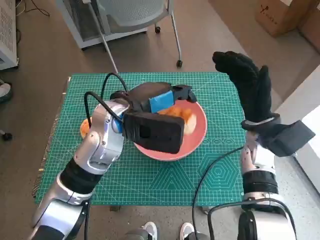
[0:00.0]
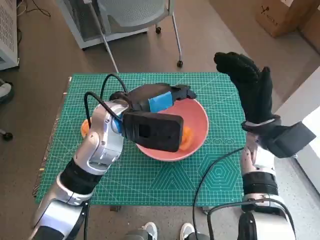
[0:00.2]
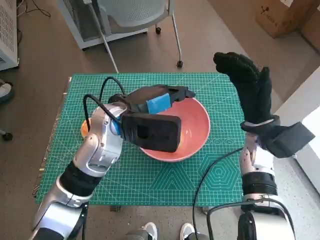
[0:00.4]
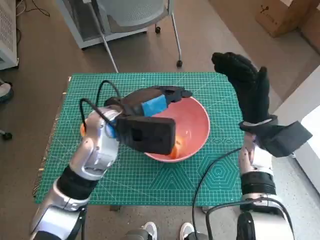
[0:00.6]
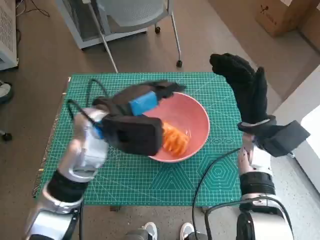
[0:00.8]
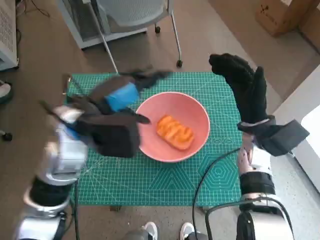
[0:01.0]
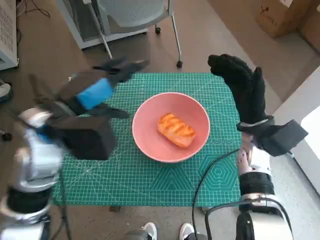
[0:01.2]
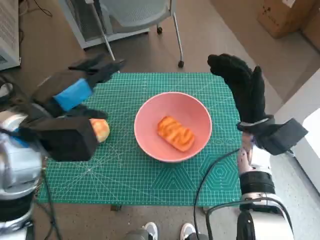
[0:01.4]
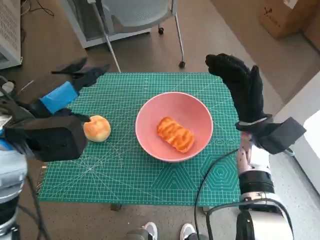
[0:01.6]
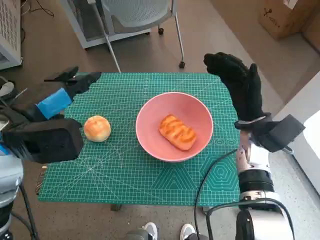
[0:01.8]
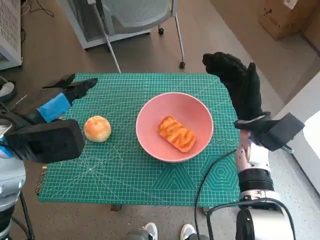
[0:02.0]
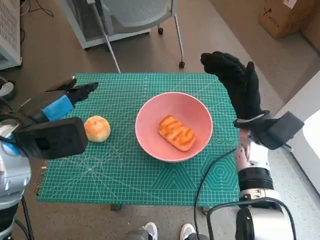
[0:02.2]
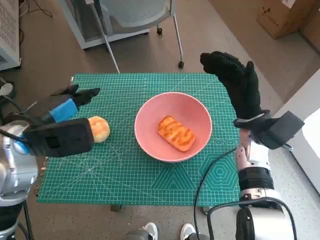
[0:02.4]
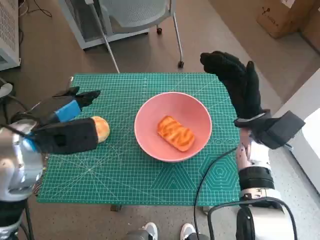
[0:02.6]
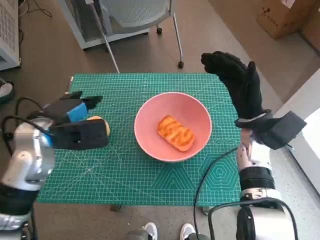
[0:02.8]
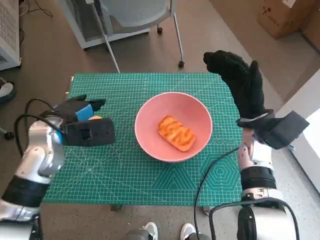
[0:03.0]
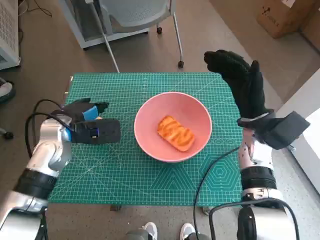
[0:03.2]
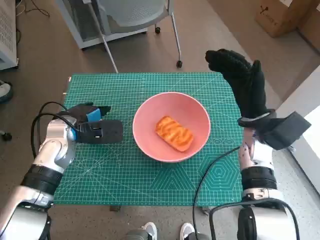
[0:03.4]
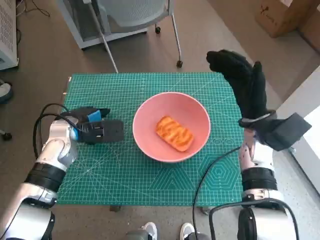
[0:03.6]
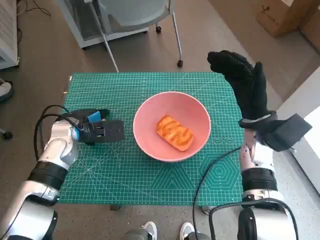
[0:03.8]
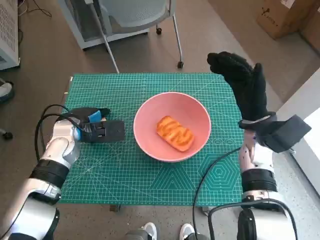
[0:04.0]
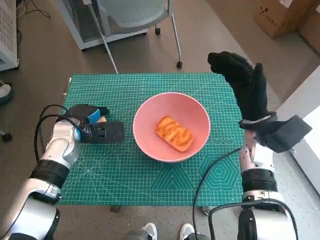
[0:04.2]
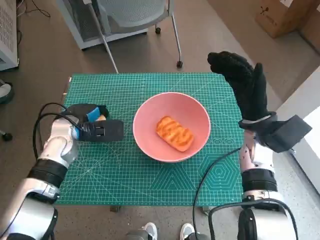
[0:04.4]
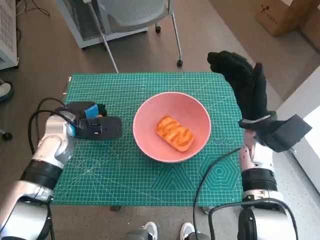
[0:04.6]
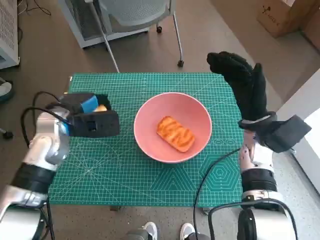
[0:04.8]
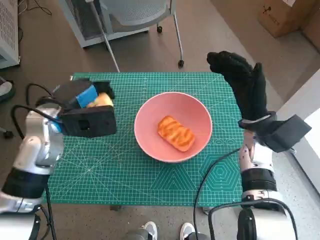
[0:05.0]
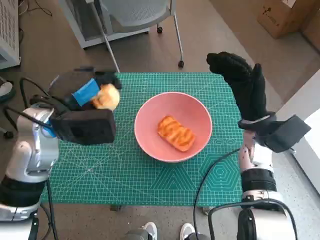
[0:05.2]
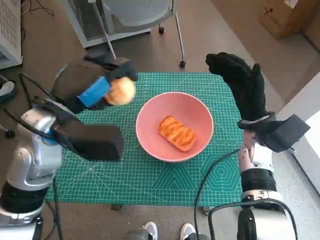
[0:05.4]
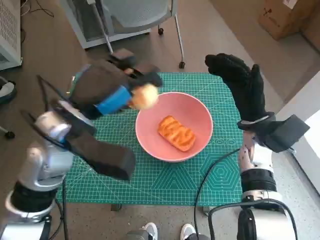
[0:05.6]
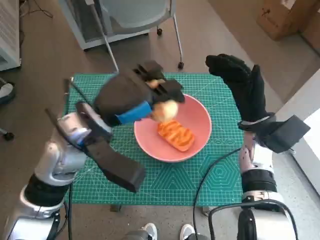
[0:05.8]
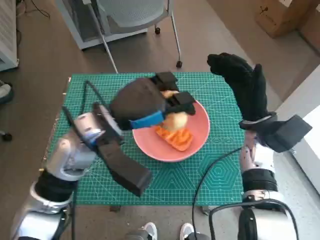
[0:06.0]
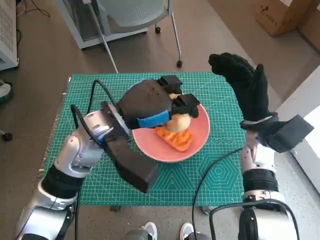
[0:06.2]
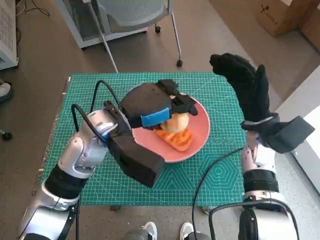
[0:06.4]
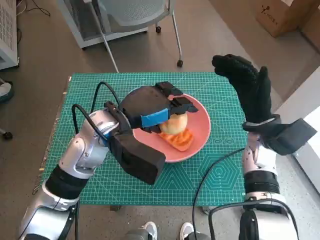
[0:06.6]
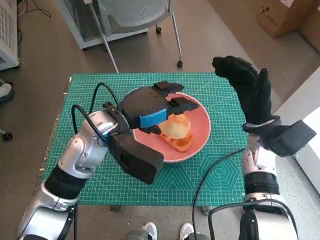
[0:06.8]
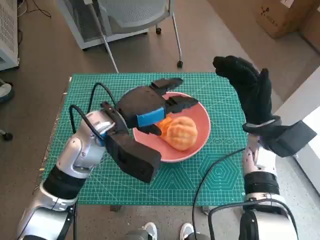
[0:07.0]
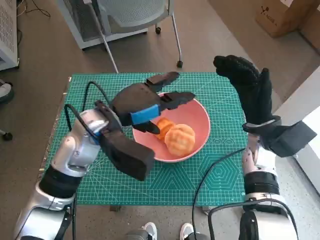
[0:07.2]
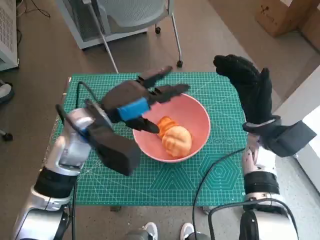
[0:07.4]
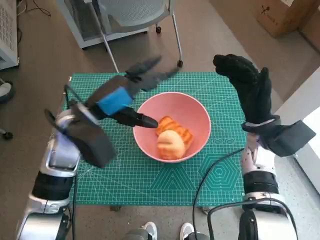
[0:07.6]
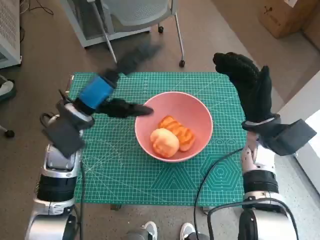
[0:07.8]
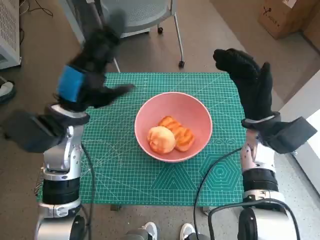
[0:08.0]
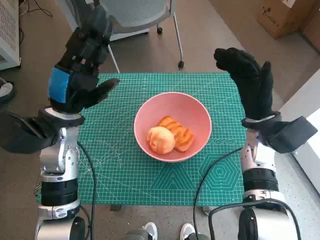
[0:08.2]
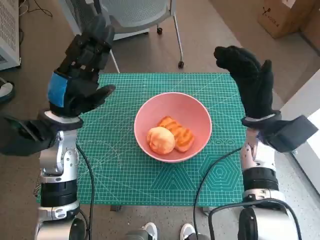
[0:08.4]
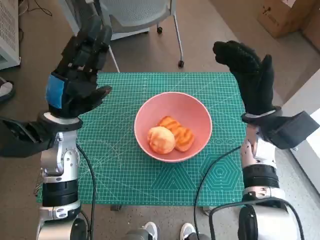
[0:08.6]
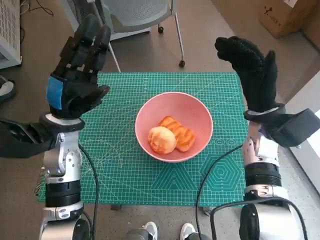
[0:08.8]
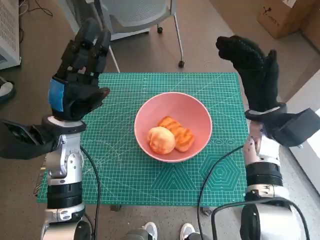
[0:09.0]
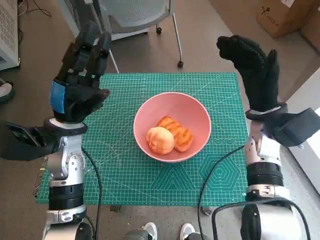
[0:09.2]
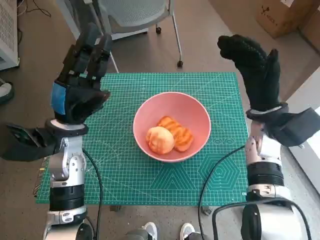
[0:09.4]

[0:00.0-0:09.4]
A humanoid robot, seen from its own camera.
Step, 0.6 to 4.0 s: Grasp the round bread with left hand.
Step, 4.2 to 7.0 s: Place the round bread in pink bowl with left hand.
0.0 to 1.6 s: The left hand moves to the left and backward, roughly 15 cm.
1.6 to 3.2 s: The left hand goes approximately 10 cm downward and forward.
3.2 to 4.8 s: The hands move only a little.
4.8 to 6.2 s: The left hand heads to the right and upward, covering roughly 10 cm.
6.2 to 7.8 s: The left hand shifts some 5 cm to the left.

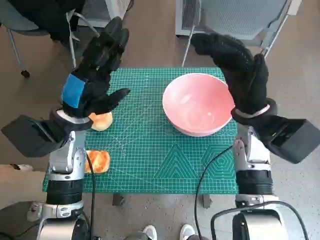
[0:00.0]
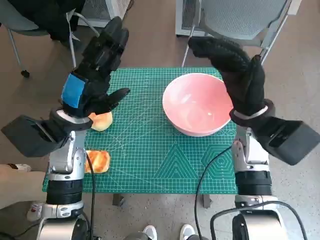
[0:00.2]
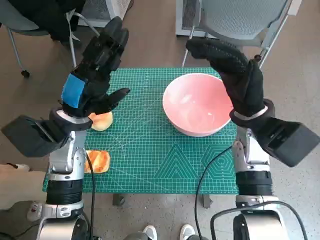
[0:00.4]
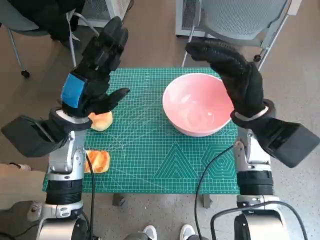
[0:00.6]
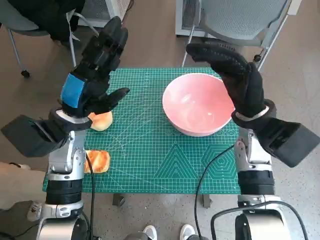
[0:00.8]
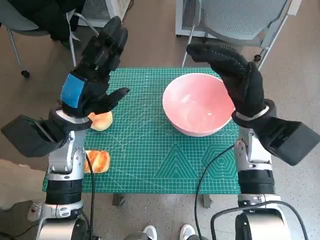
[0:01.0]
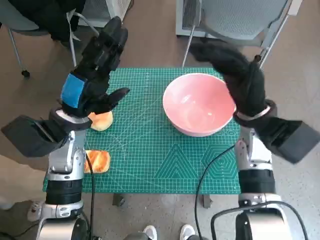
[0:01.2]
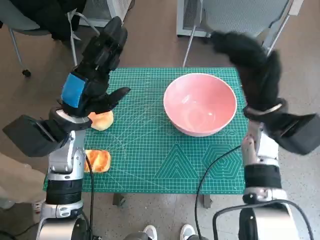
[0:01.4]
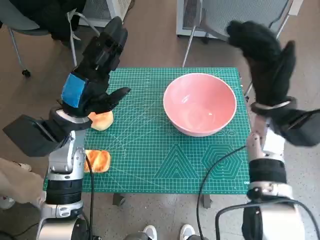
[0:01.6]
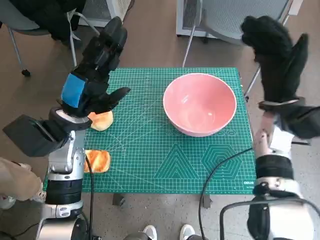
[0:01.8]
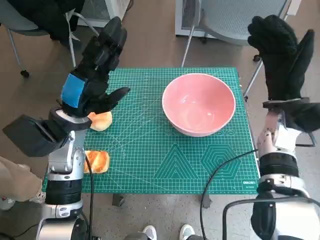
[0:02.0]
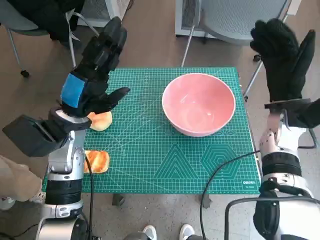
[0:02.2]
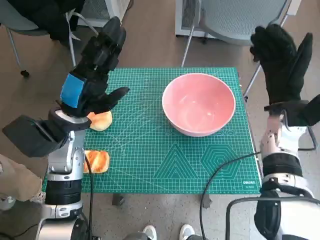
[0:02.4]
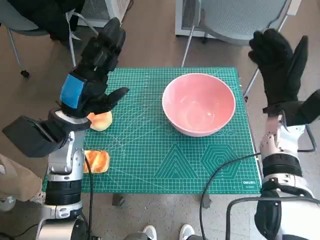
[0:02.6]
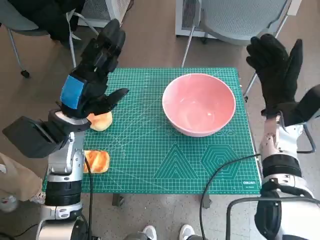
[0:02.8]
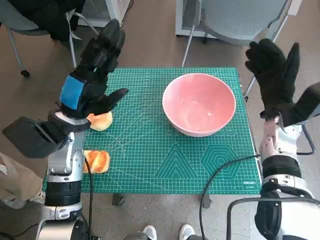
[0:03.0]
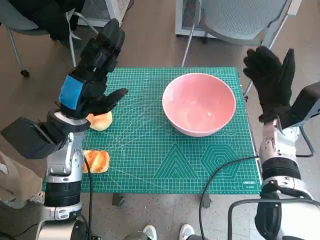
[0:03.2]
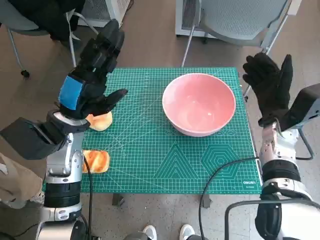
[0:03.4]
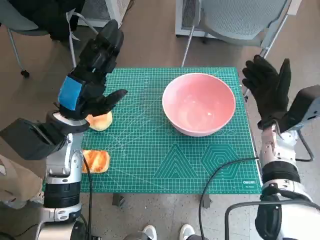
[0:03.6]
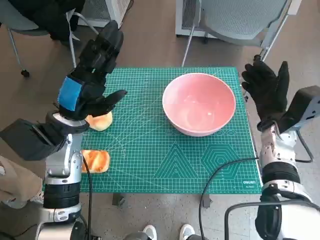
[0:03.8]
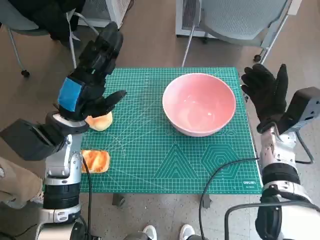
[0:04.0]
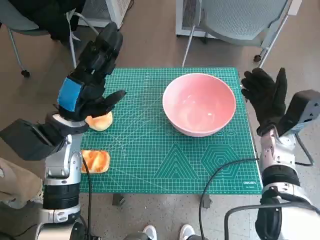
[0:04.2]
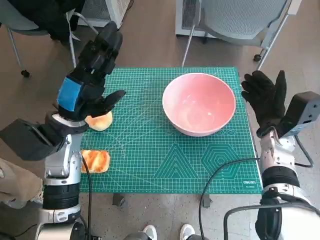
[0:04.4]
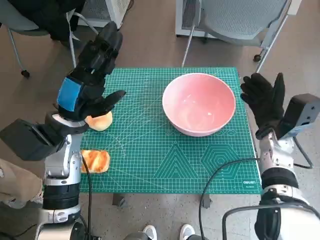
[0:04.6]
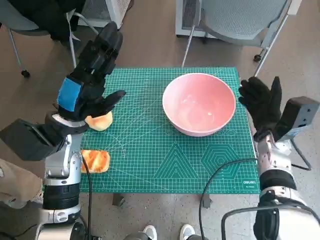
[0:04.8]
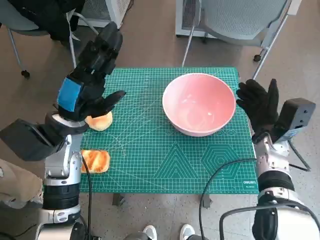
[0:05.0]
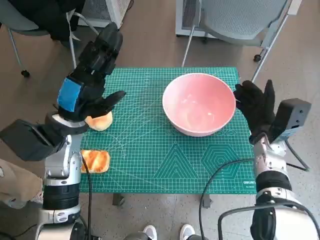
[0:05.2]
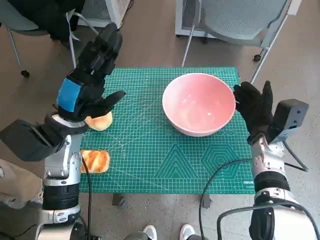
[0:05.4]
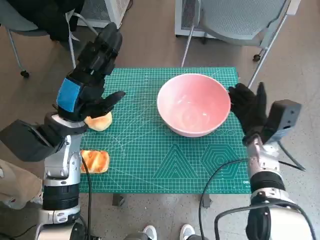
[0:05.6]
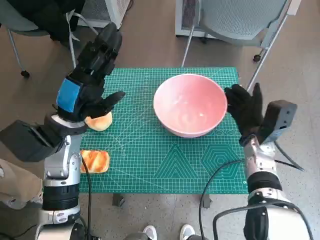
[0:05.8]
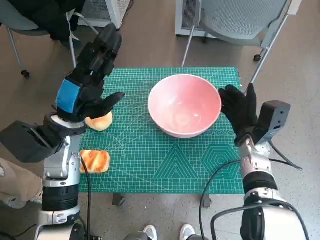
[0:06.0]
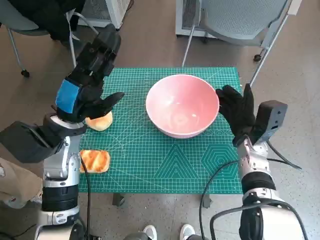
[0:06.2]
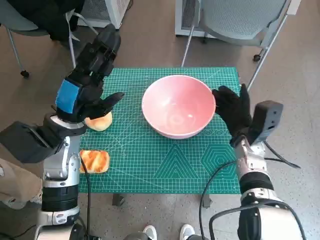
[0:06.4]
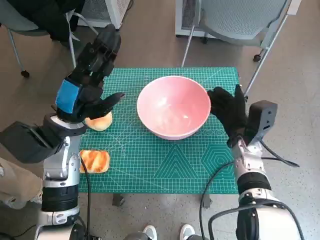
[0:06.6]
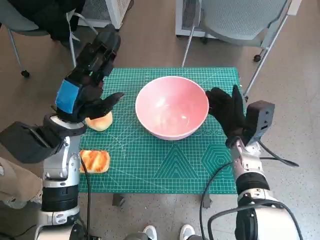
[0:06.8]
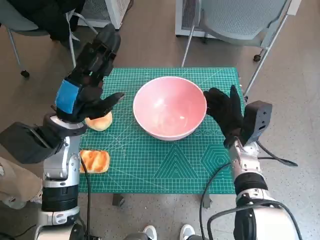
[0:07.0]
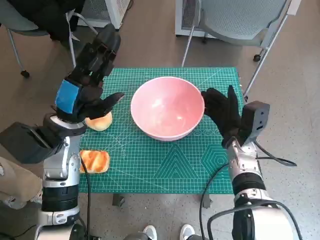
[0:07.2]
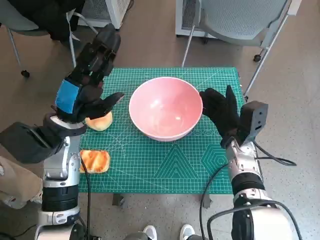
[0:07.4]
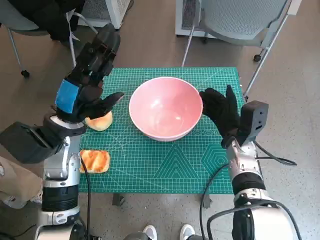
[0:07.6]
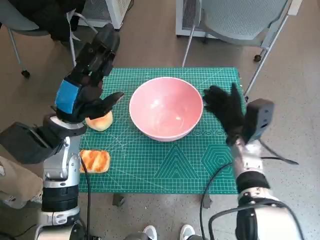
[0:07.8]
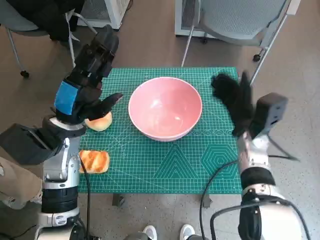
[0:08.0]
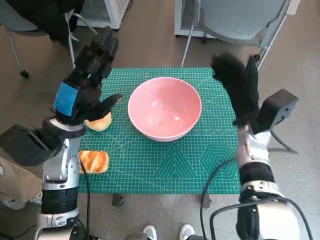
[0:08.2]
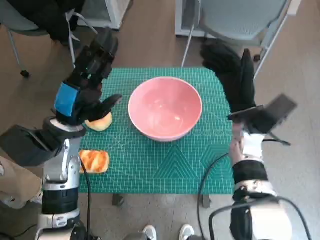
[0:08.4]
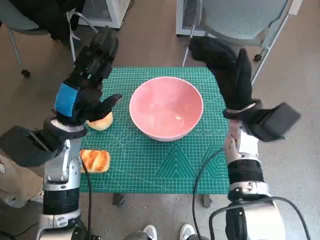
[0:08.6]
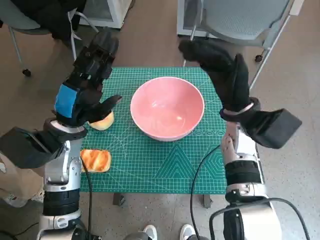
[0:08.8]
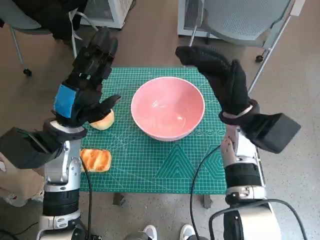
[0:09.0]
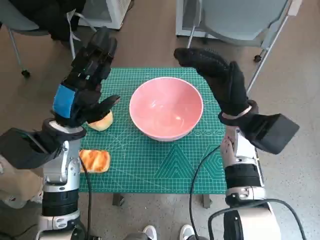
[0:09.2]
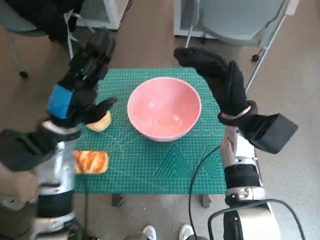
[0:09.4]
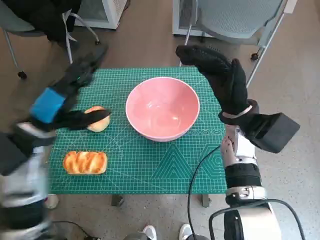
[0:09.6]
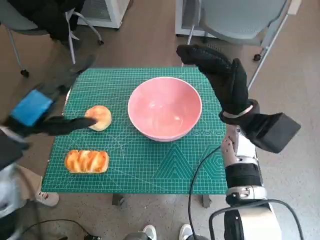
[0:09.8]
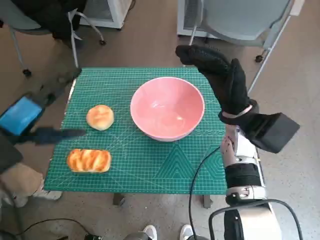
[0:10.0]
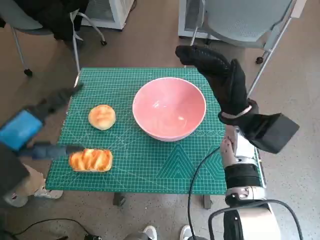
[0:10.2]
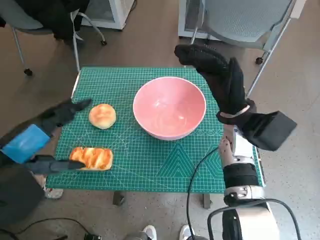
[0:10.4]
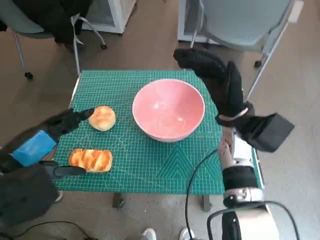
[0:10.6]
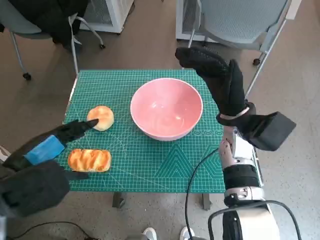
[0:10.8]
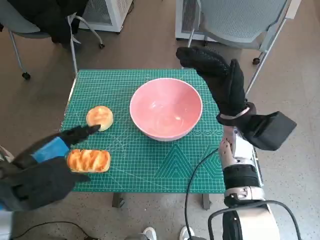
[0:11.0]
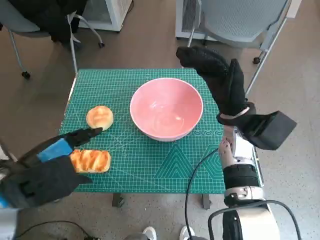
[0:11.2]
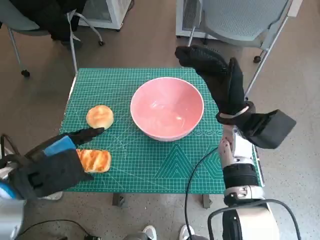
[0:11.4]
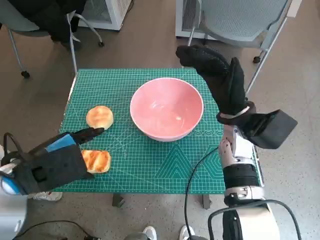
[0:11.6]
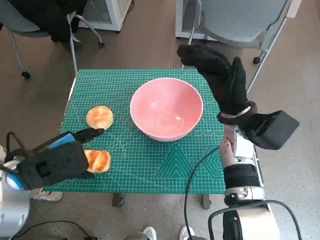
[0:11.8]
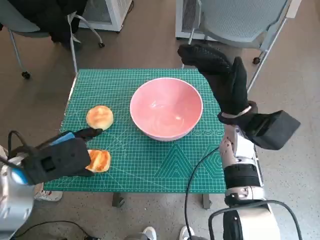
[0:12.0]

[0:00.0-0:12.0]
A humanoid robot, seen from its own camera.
Step, 0.0 to 7.8 s: Move the pink bowl to the center of table with right hand.
1.6 to 3.0 s: The right hand shifts by approximately 5 cm.
3.0 to 4.4 s: There are only small adjustments of the hands.
4.4 to 6.0 s: The hands make only small movements.
6.0 to 7.6 s: The hands stay close to where they were, moving slightly.
7.6 to 9.0 s: The right hand moves upward, some 10 cm.
9.0 to 10.4 s: The left hand heads backward and upward, covering some 15 cm.
10.4 to 12.0 s: The left hand goes roughly 5 cm downward.

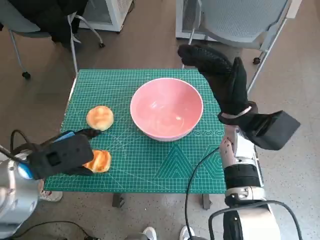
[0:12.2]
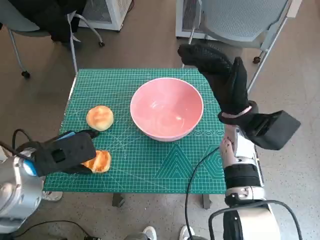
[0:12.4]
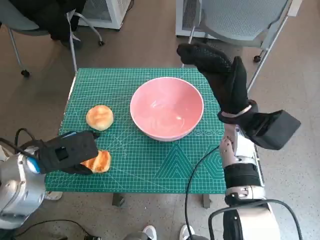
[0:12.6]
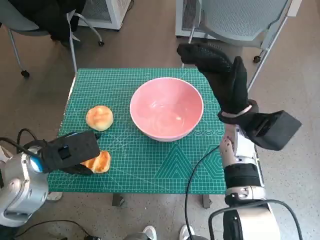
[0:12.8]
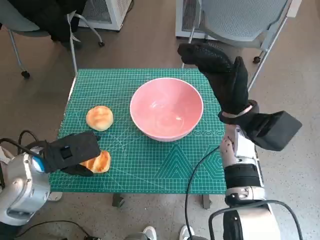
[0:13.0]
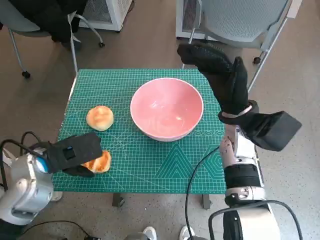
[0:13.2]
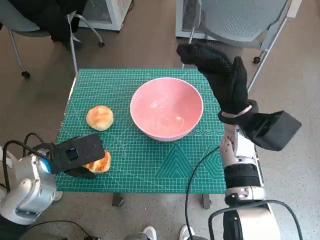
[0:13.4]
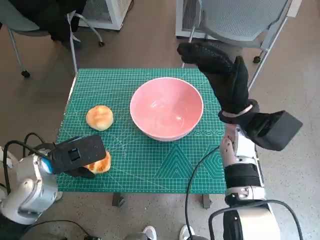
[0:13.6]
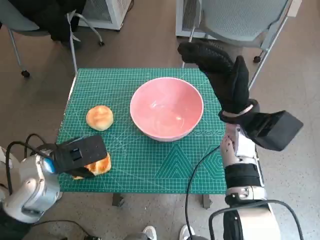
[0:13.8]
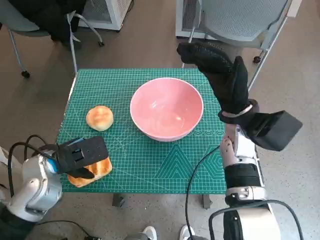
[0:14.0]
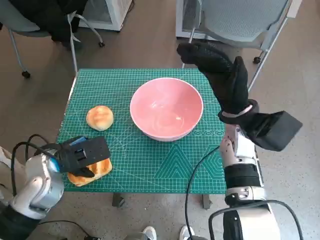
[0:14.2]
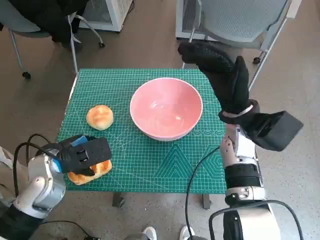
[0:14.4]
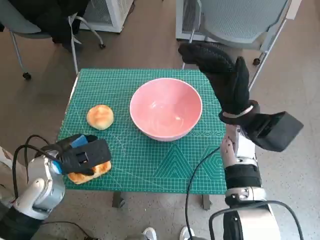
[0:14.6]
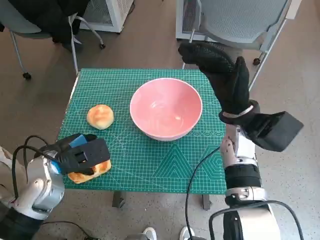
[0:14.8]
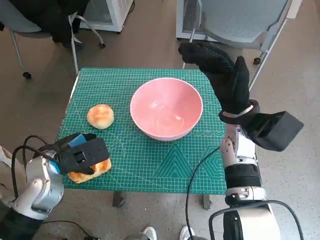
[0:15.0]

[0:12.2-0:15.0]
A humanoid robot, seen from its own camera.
12.2 to 13.6 s: The hands move only a little.
13.6 to 15.0 s: The hands move only a little.
